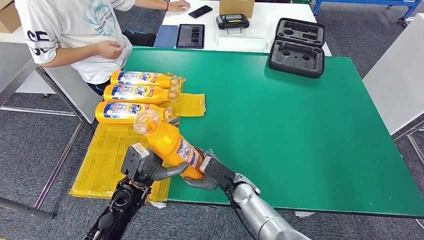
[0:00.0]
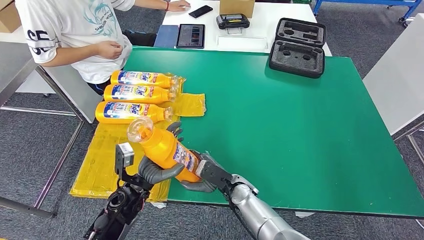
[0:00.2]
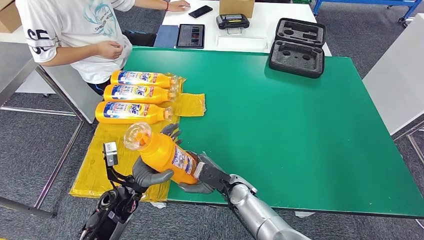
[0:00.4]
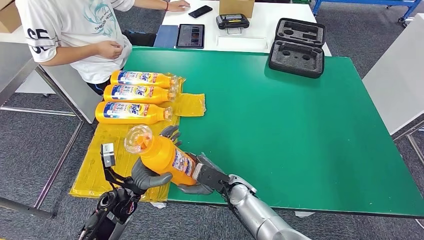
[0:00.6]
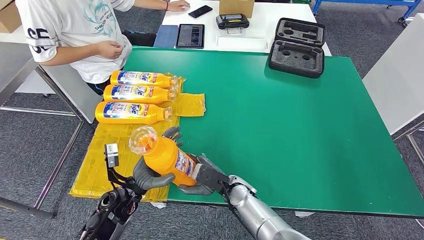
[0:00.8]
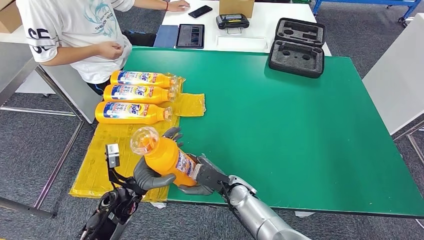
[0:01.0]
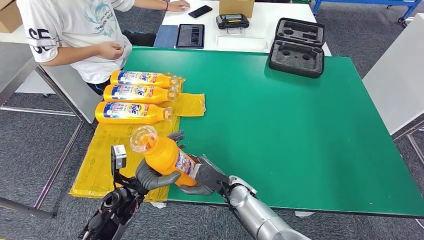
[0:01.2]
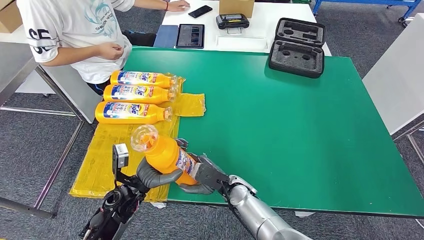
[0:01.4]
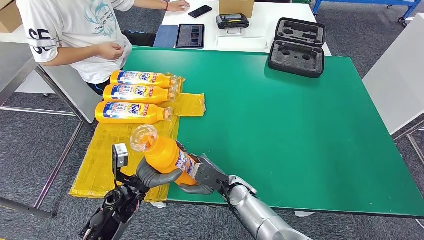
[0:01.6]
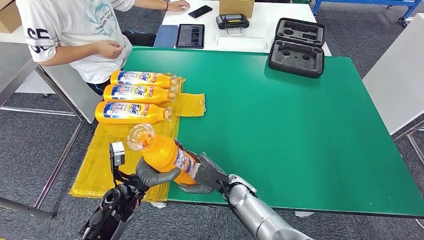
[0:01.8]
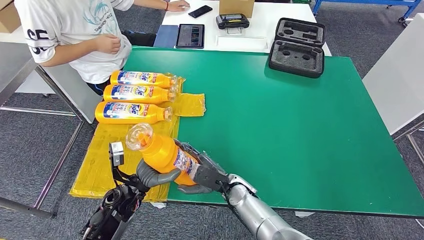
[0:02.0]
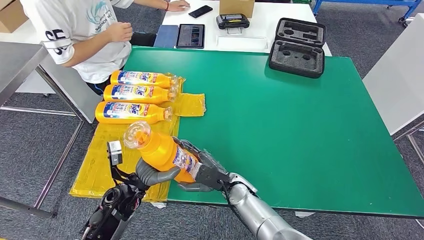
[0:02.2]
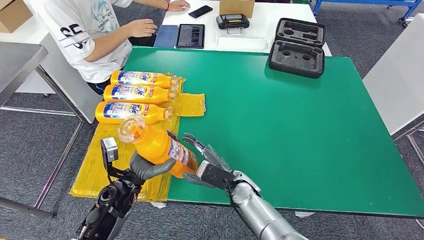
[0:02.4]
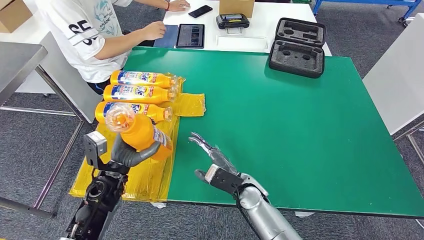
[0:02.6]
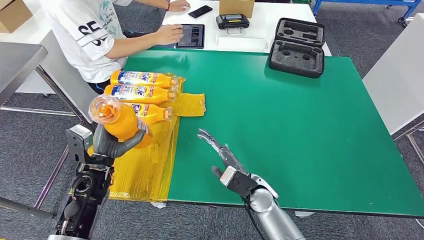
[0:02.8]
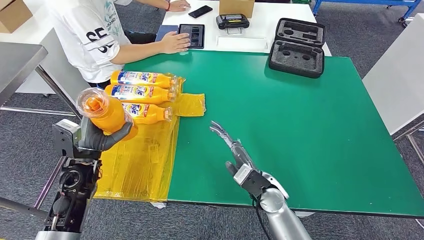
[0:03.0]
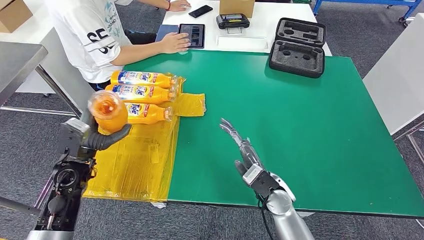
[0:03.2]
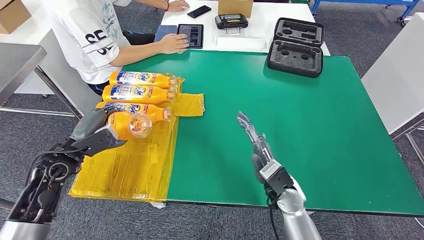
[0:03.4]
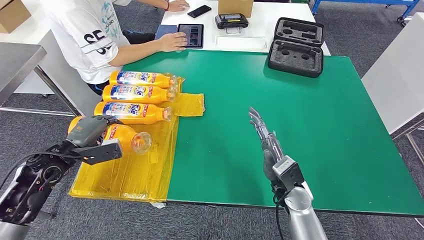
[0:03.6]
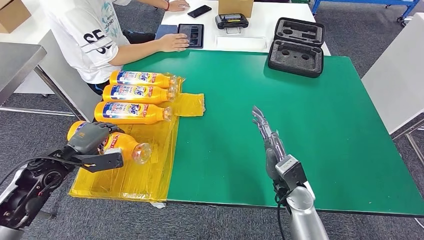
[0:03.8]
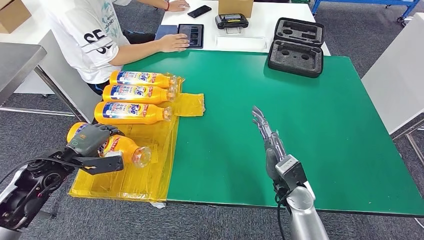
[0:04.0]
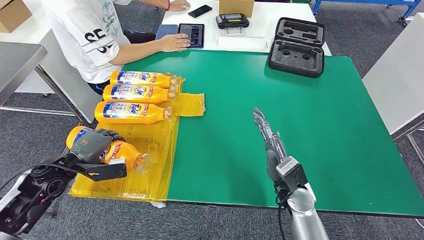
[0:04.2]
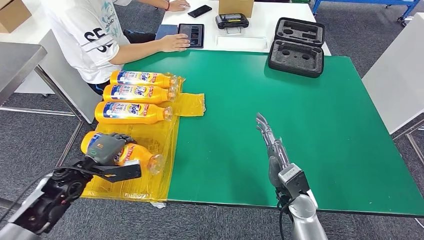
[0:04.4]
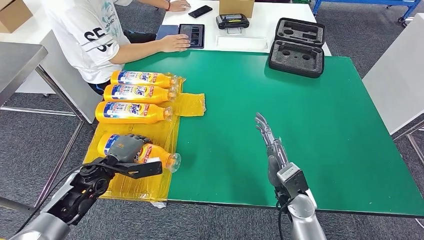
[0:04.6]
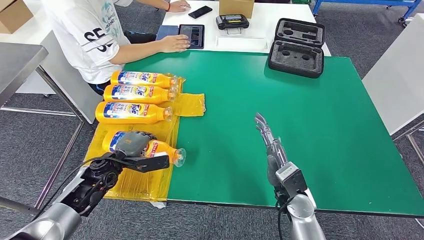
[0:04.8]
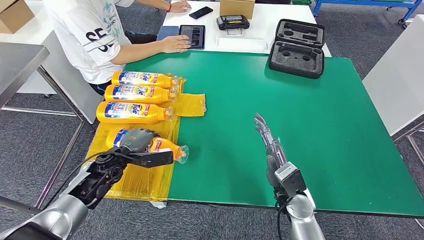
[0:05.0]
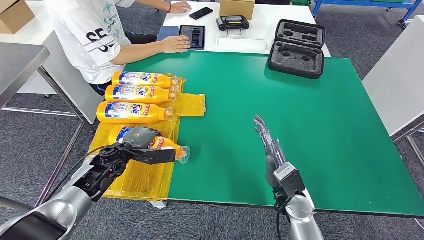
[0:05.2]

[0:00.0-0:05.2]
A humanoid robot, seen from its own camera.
Step, 0:00.0 to 0:05.2: Flip the bottle to face forward.
